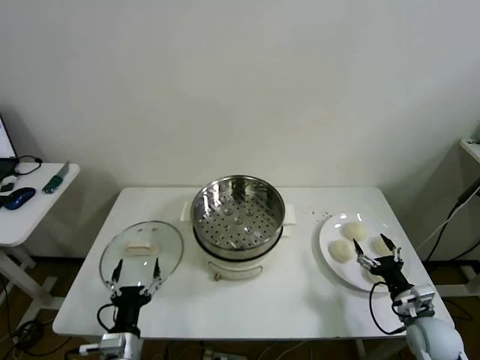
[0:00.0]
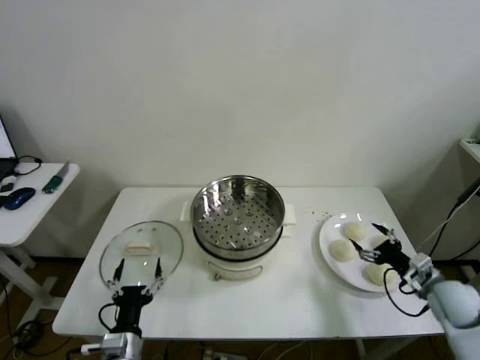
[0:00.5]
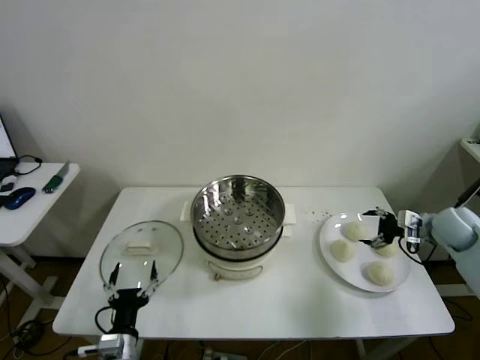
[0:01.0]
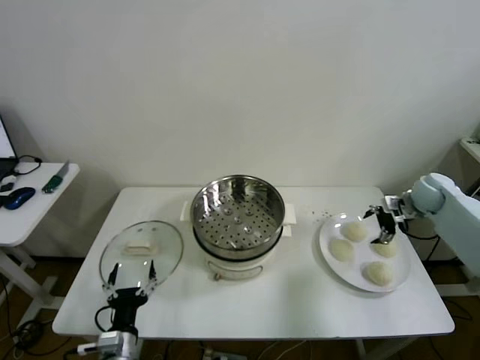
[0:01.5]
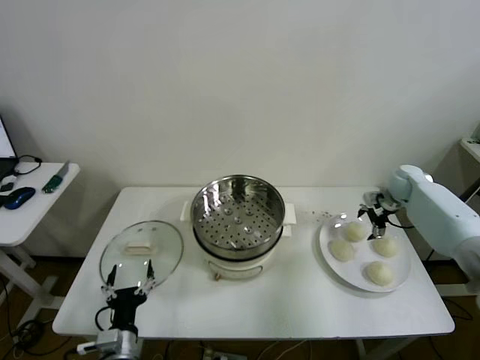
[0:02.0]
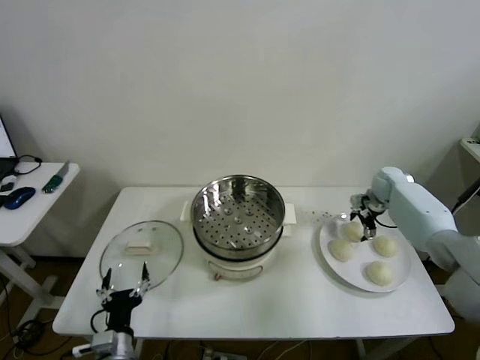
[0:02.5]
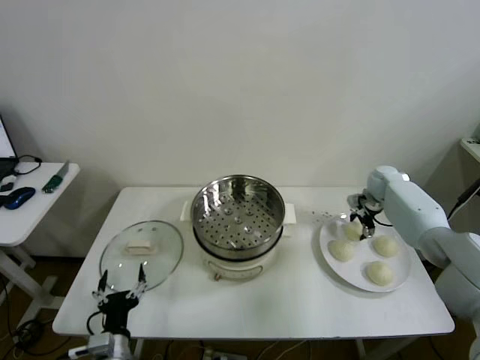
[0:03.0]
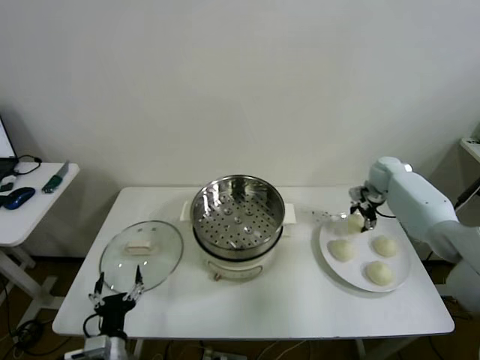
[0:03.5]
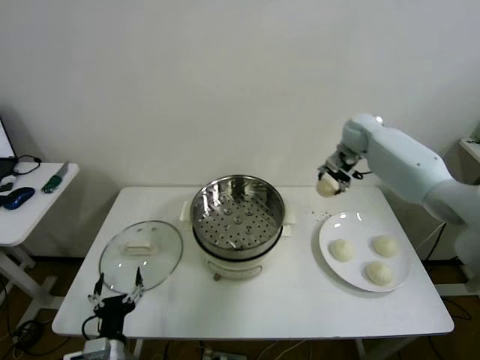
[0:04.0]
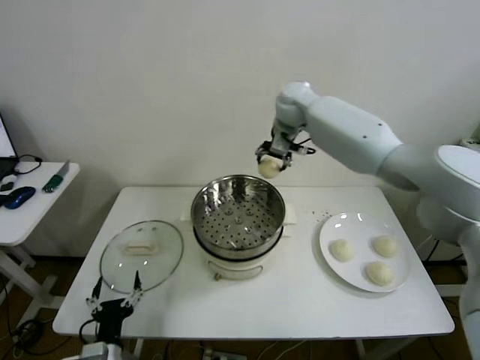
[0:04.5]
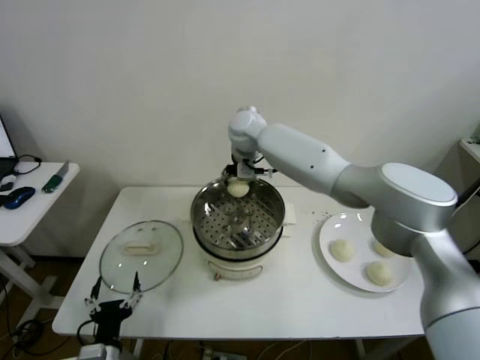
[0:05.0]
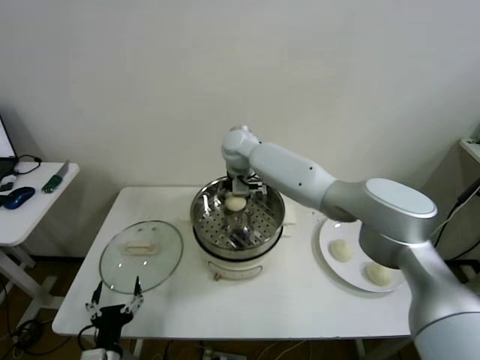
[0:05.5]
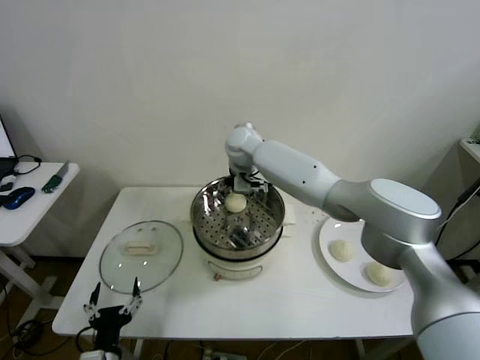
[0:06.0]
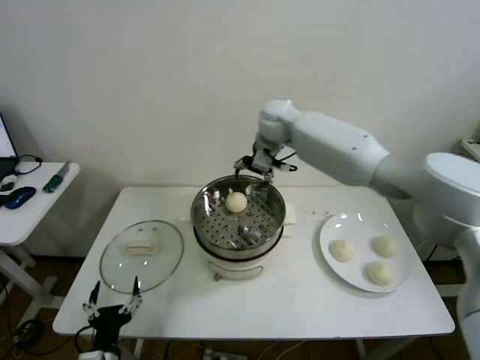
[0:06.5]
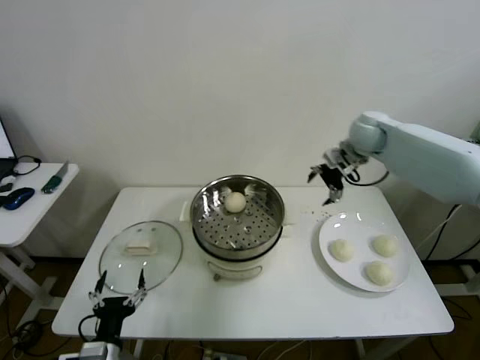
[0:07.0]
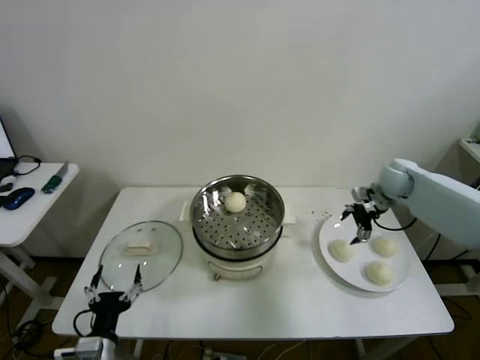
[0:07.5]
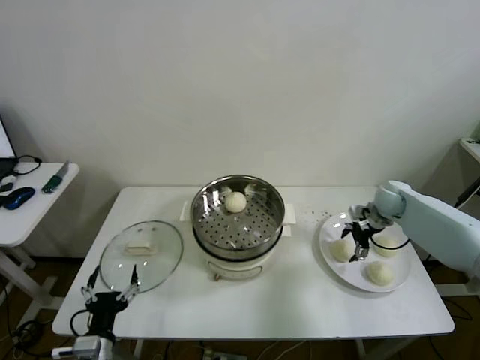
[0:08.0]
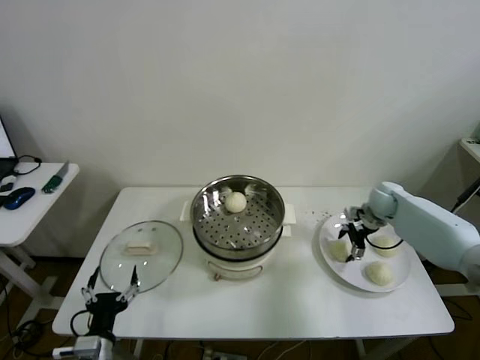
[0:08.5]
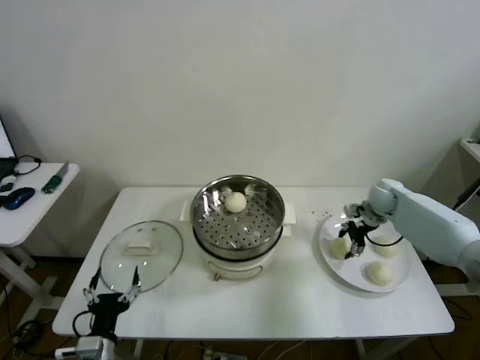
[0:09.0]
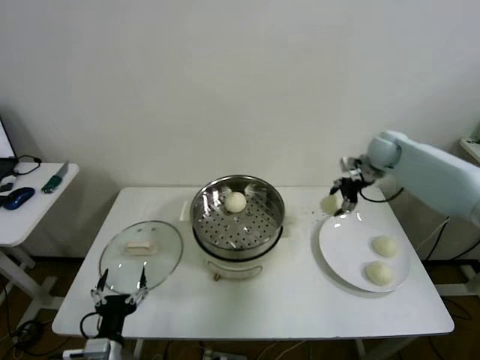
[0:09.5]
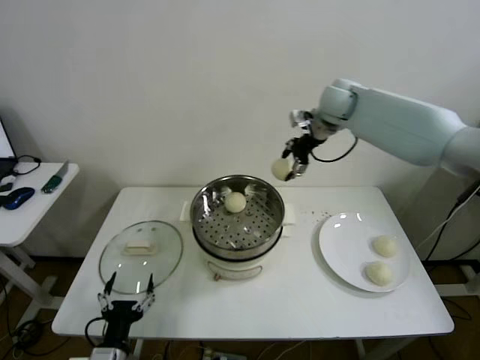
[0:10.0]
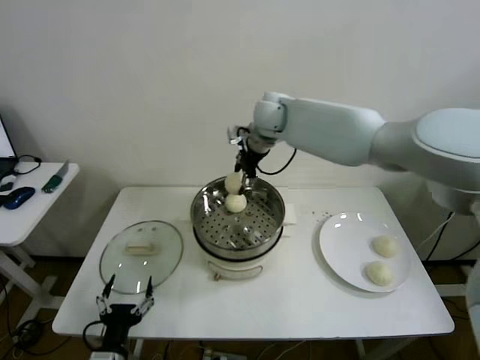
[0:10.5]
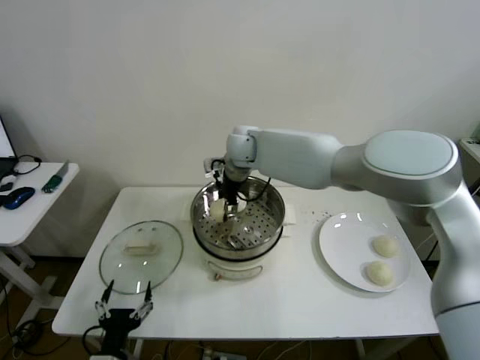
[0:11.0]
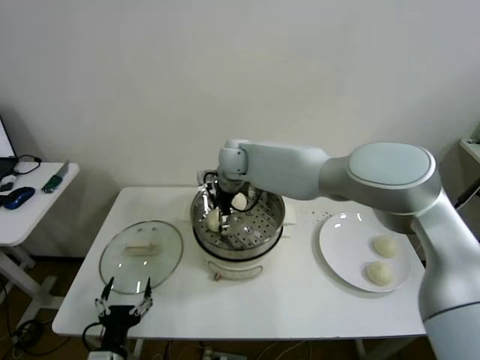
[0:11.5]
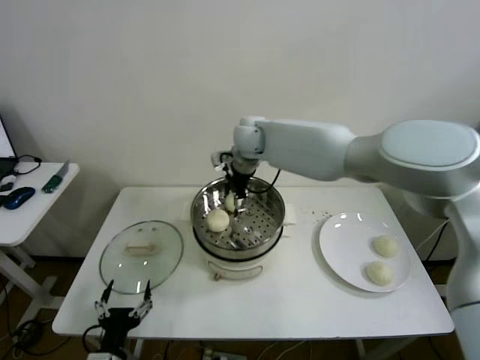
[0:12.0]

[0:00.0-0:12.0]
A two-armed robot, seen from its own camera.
Step, 0:00.0 to 0:02.5: Grasp the baozi in the plate with right gripper.
Step, 0:03.5 to 0:05.5: Place the baozi on the steamer with right gripper.
Step, 0:06.0 to 0:08.5: Grasp the baozi in the plate with right gripper.
Step, 0:09.0 to 0:11.0: Place the baozi on the steamer with right gripper.
0:02.0 to 0:04.0: The right gripper heads to the left and upward, covering some 25 cm, and closes.
0:04.0 to 0:06.0: The right gripper moves to the left, approximately 25 cm, and opens.
0:06.0 to 0:08.0: The right gripper goes some 40 cm to the right.
0:08.0 to 0:10.0: The right gripper is displaced upward and to the left by approximately 35 cm, and closes.
0:10.0 to 0:12.0: The right gripper is displaced to the left and downward by roughly 15 cm, and opens.

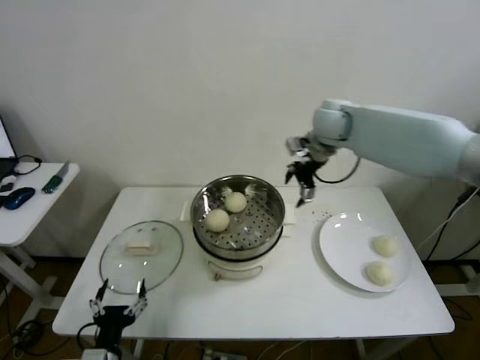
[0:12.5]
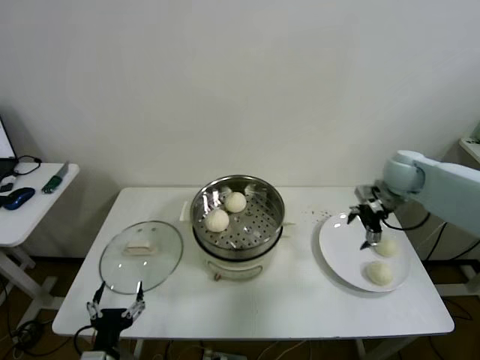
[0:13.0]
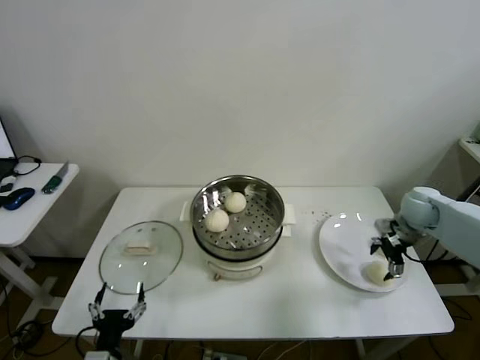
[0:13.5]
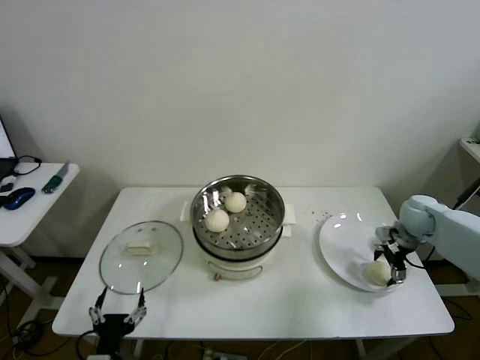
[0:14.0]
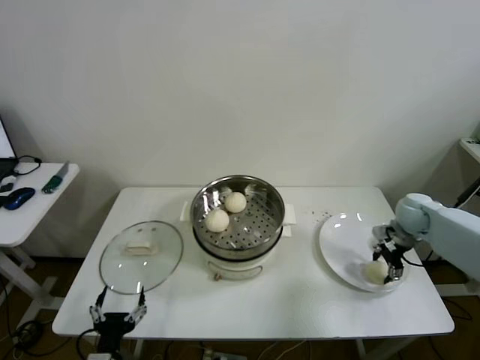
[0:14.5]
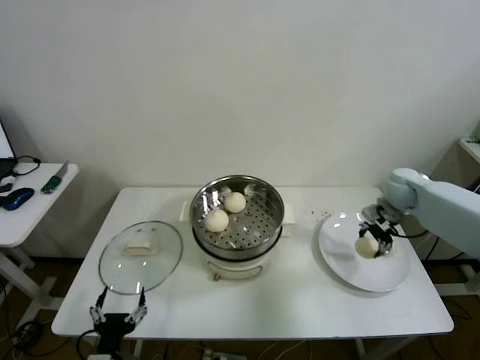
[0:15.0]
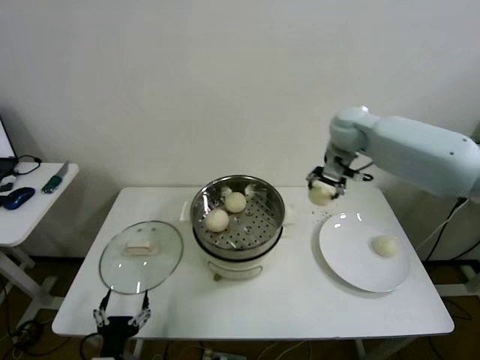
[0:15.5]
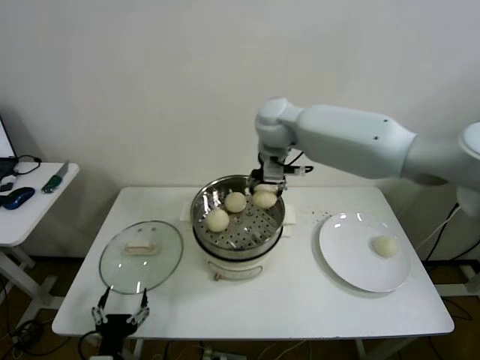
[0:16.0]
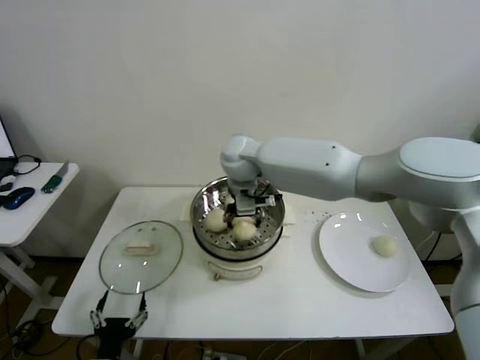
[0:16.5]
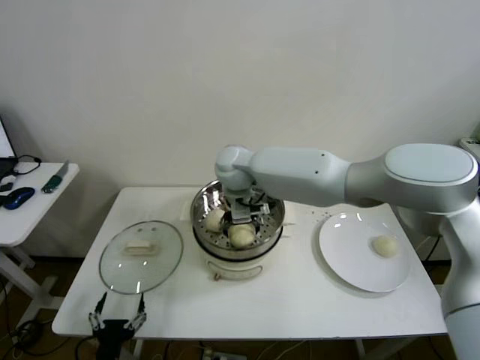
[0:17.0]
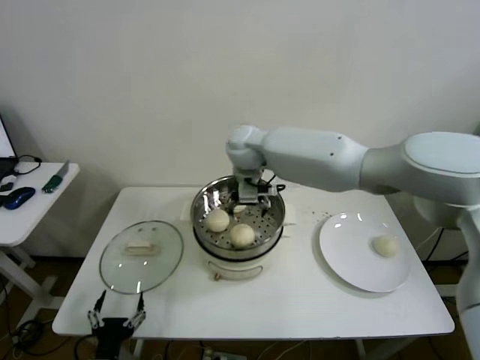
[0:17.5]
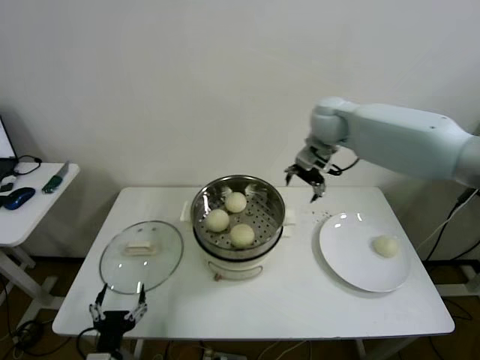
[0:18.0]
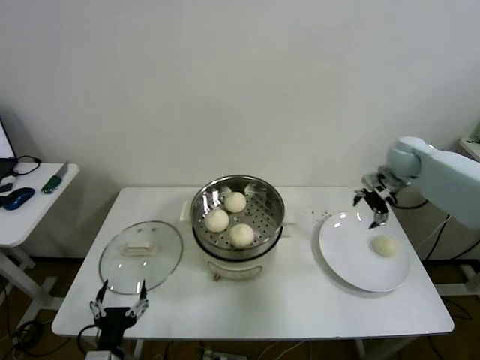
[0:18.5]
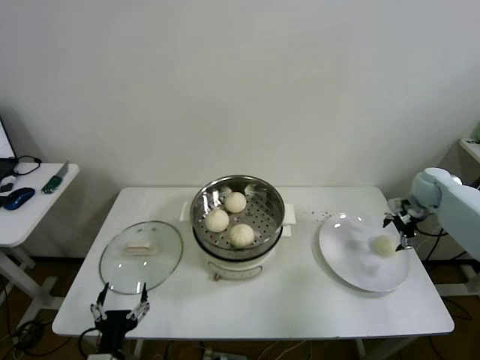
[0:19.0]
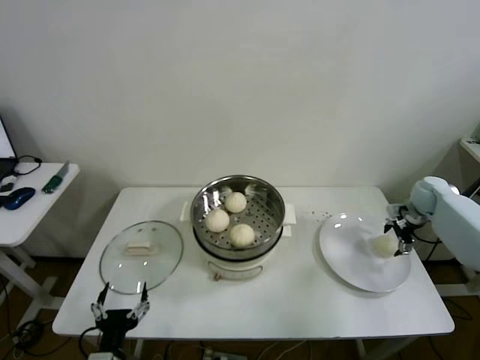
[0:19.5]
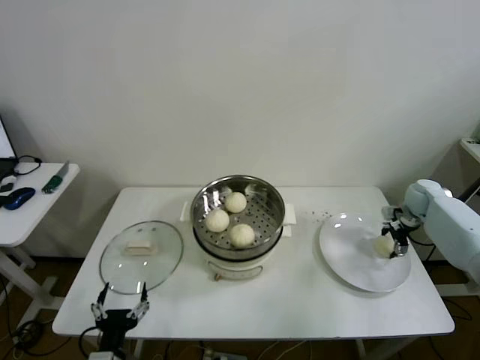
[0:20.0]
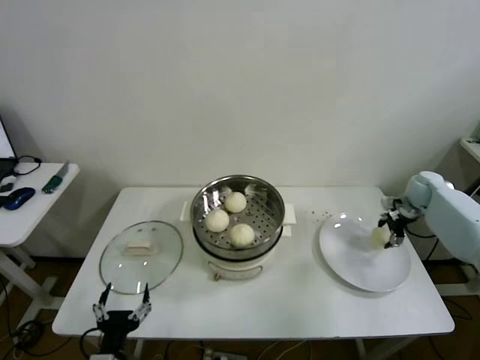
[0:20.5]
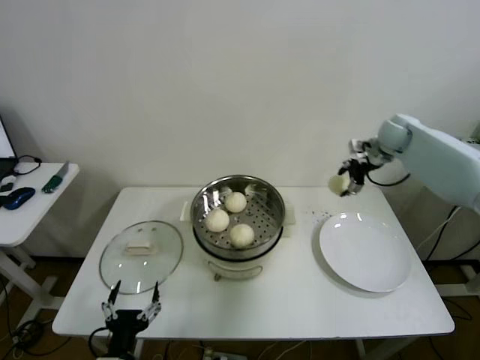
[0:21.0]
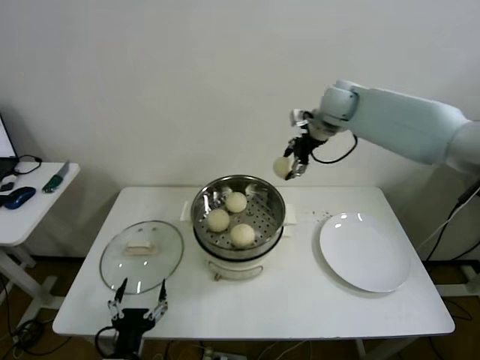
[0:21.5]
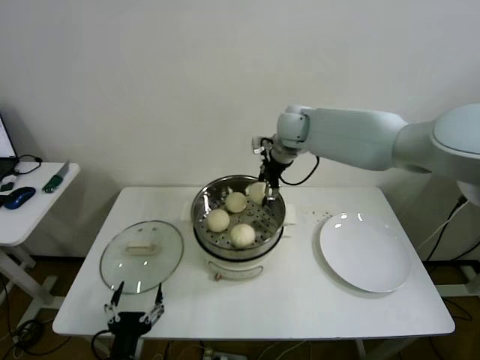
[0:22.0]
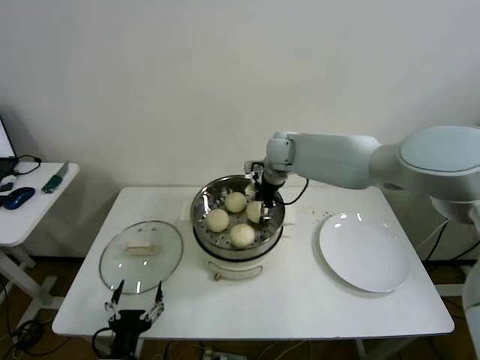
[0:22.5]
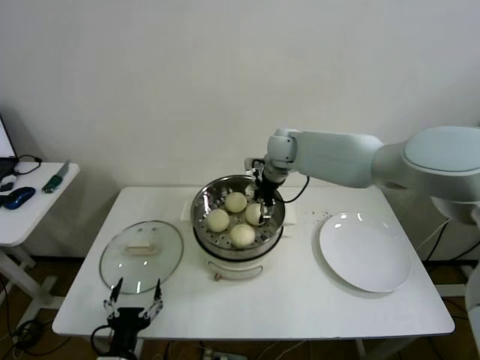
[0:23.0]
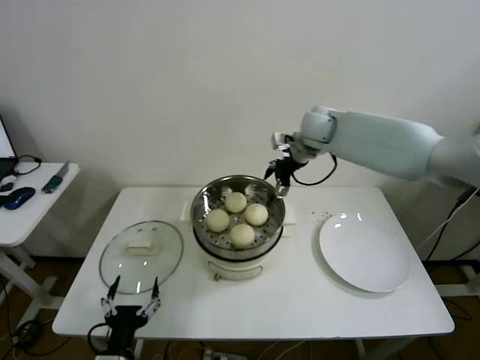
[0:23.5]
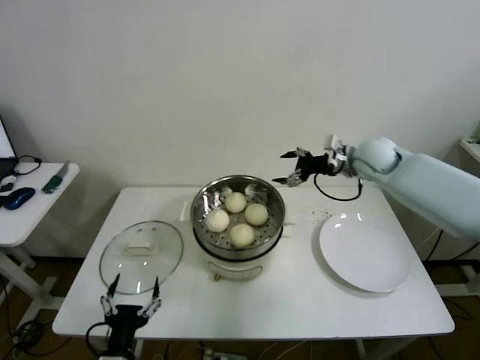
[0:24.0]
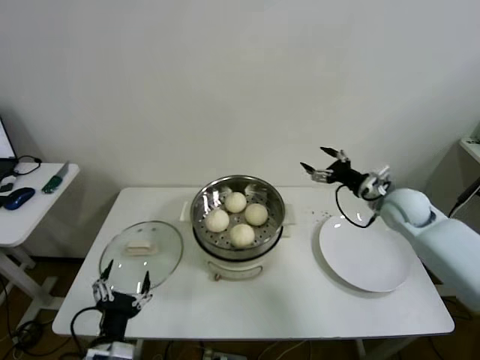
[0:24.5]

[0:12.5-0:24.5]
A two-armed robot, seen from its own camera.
Step, 0:12.5 to 0:14.0: Grasp the baozi in the plate with right gripper.
Step, 0:14.5 to 0:16.5: Place the baozi on the steamer with right gripper.
Step, 0:17.5 to 0:19.5: Grasp the baozi in the plate with right gripper.
Step, 0:20.5 to 0:22.5: Place the baozi on the steamer with right gripper.
0:12.5 to 0:14.5: The right gripper heads downward and to the right, covering roughly 30 cm, and closes up.
0:14.5 to 0:16.5: The right gripper is displaced to the left by about 40 cm.
0:16.5 to 0:18.5: The right gripper travels to the right by approximately 40 cm, and opens up.
0:18.5 to 0:20.5: The right gripper goes some 15 cm downward and to the right, and closes.
0:20.5 to 0:22.5: The right gripper heads to the left, covering roughly 40 cm.
0:22.5 to 0:24.5: The right gripper travels to the right and backward by roughly 30 cm, and opens its fingers.

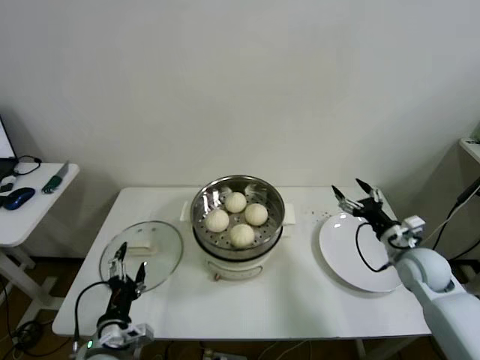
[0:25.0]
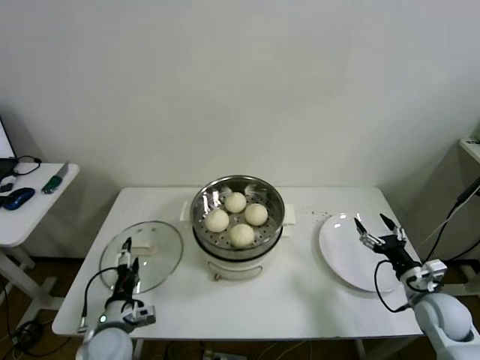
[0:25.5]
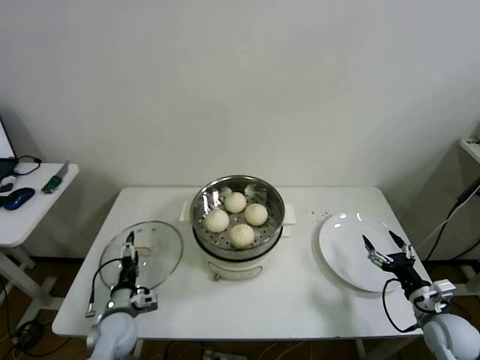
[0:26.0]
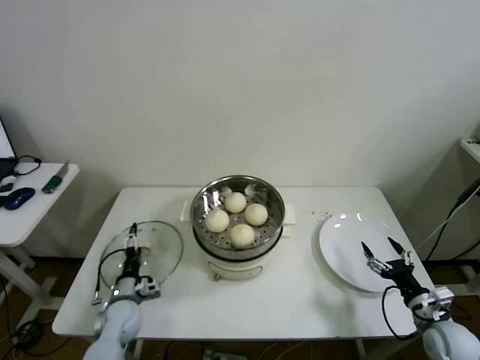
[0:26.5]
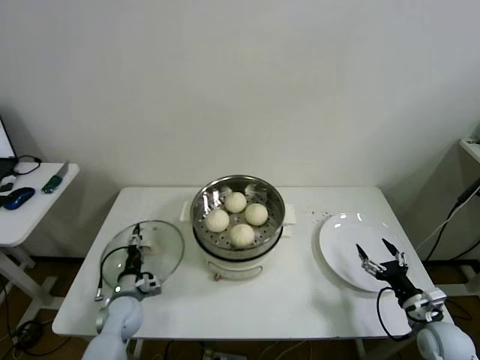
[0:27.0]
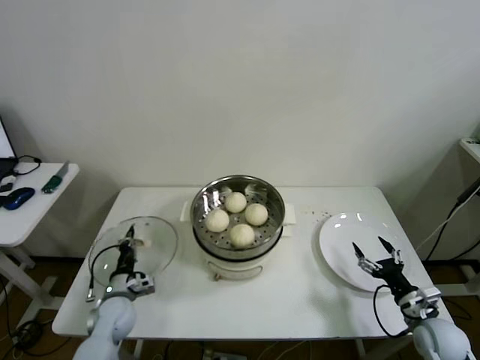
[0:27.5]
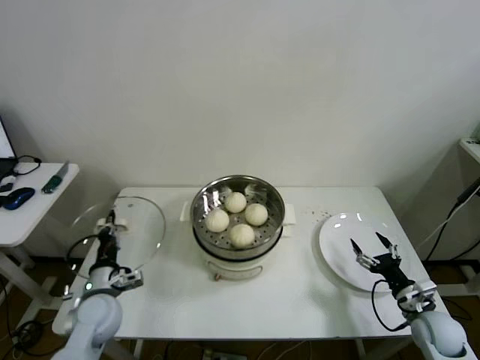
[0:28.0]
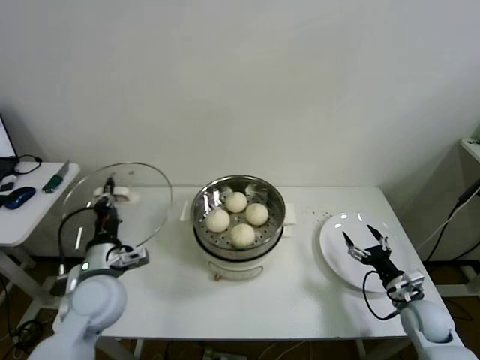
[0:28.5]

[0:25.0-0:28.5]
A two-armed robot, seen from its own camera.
Step, 0:25.0 to 0:27.0: Grasp the pot lid with left gripper.
0:25.0 to 0:27.0: The right gripper shifts some 15 cm backward and downward; the left gripper travels forward and downward by approximately 20 cm.
0:27.0 to 0:28.5: The right gripper moves forward, approximately 5 cm; the left gripper is displaced upward by about 20 cm, and closes up.
